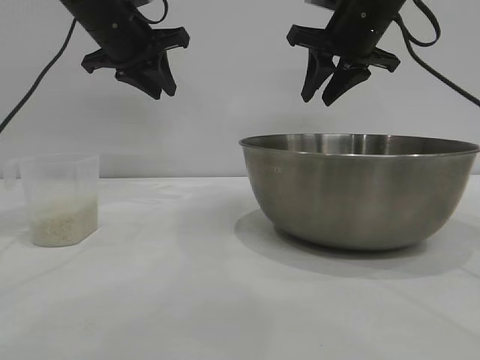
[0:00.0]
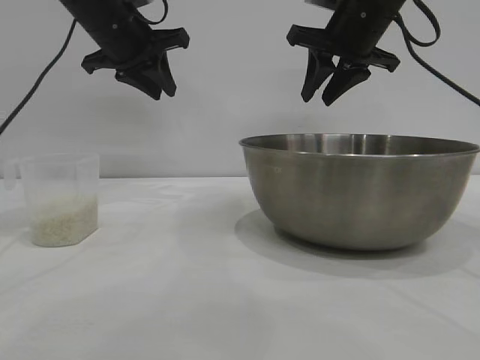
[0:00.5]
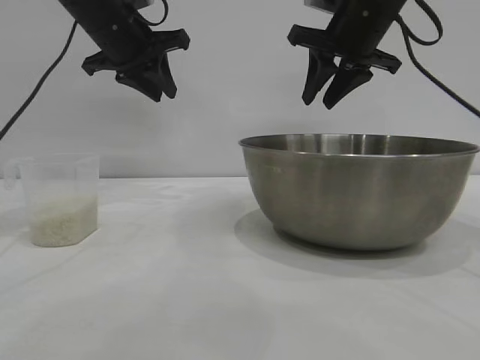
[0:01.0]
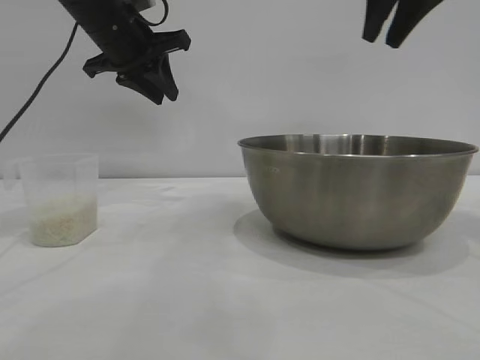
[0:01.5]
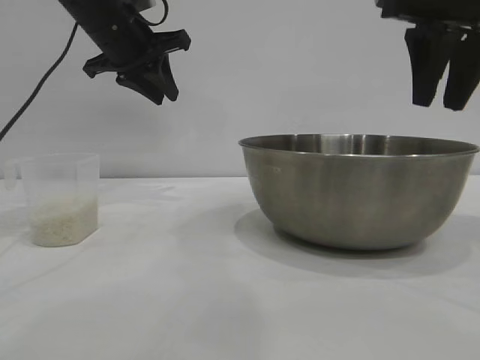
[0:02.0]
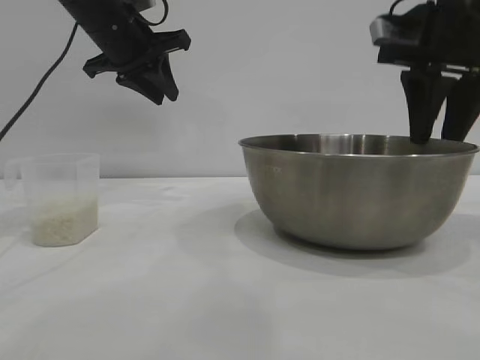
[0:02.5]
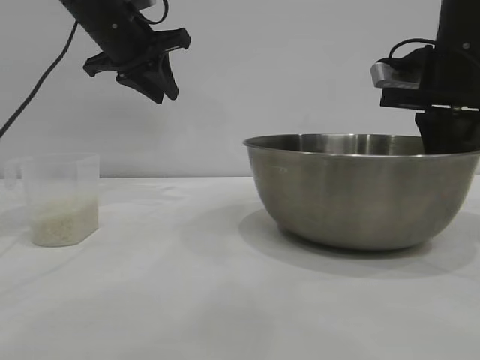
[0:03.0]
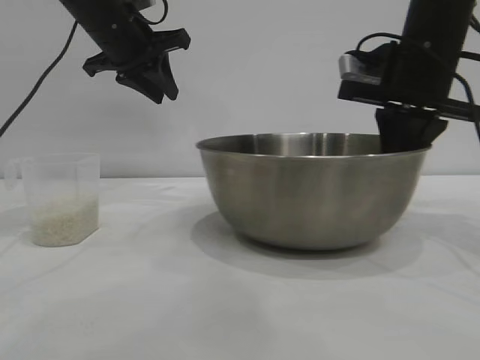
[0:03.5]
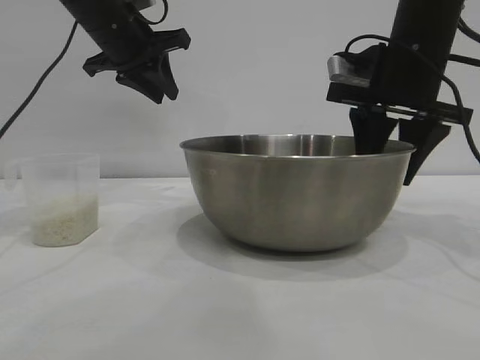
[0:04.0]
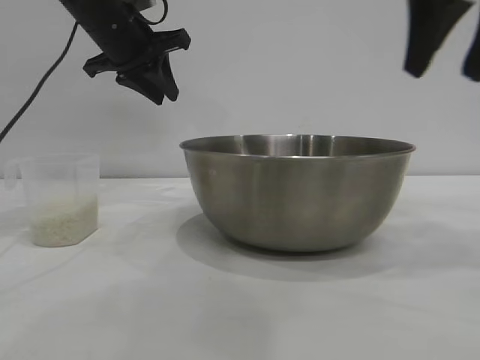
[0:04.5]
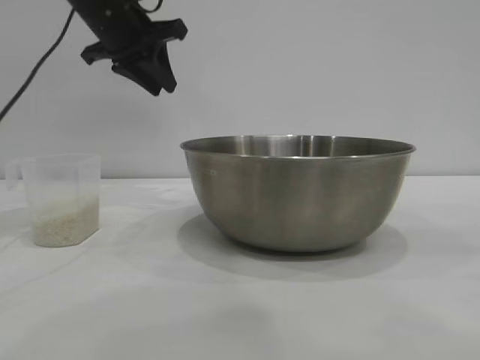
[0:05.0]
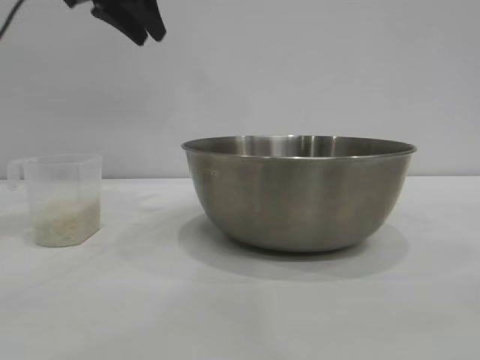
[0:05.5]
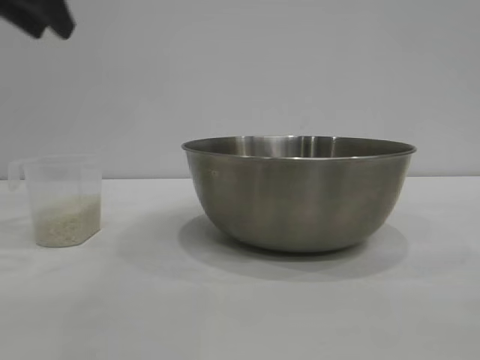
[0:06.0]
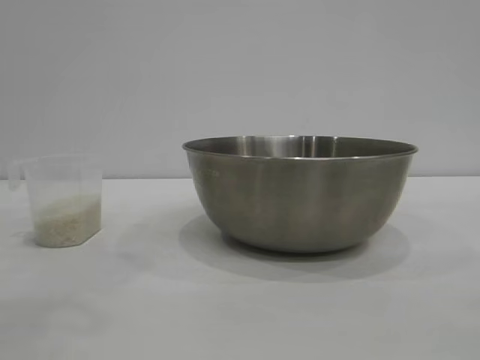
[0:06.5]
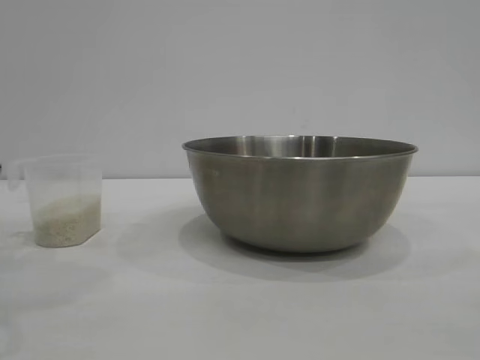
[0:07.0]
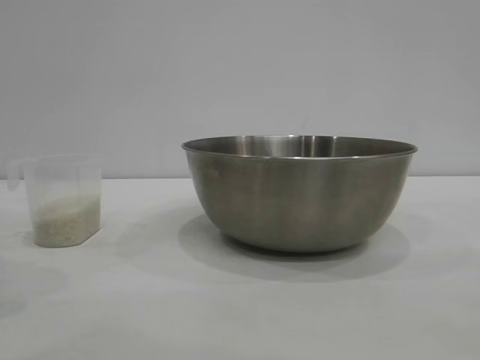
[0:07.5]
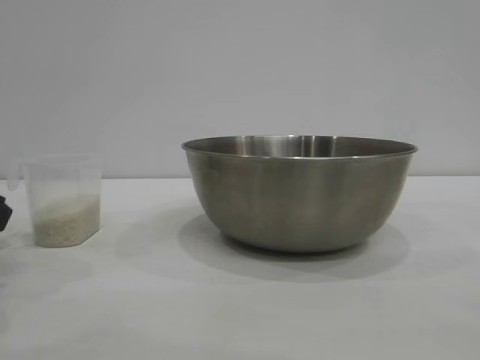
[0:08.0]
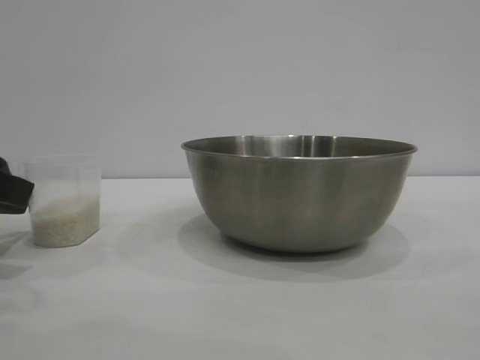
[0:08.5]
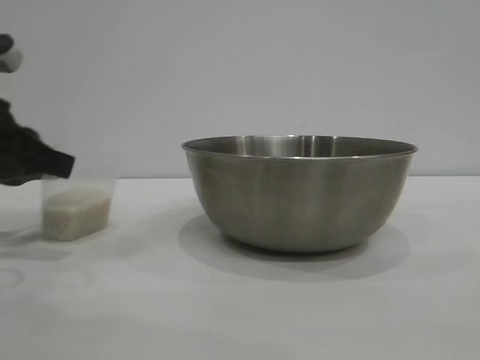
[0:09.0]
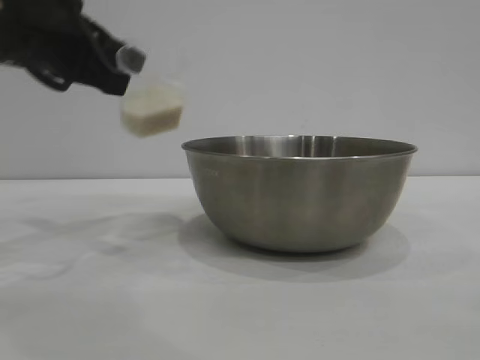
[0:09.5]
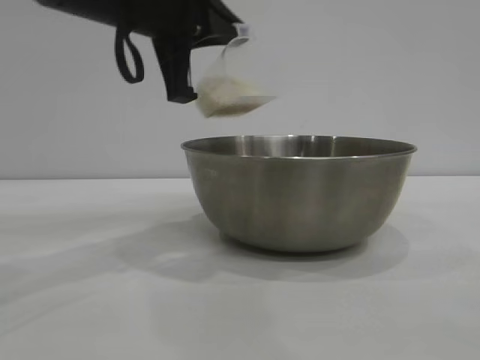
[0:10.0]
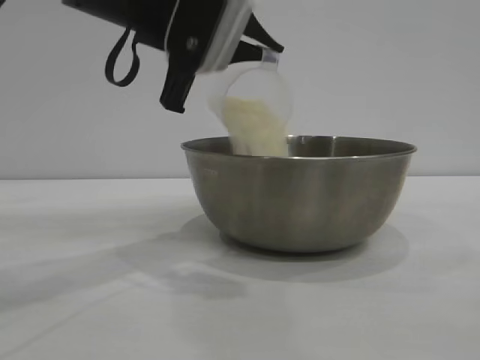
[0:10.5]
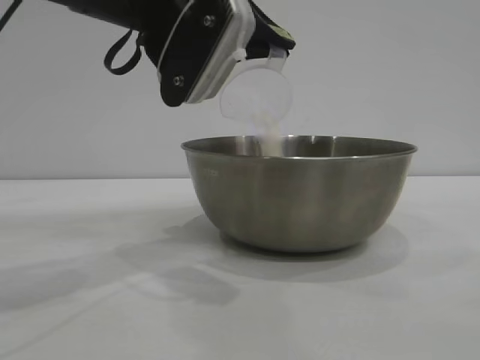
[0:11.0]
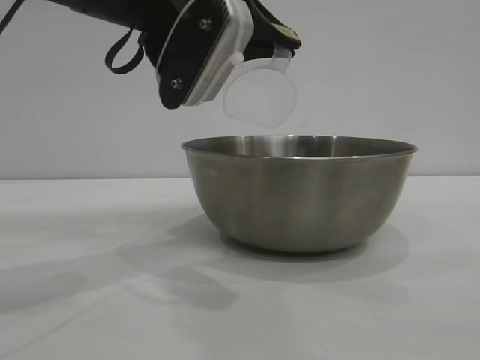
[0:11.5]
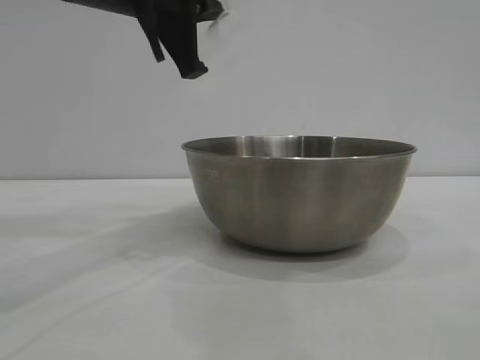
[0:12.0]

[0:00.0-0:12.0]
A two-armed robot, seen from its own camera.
Task of the whole recording: the right gripper grasp the rice container and place it in the center of the table, the left gripper grasp the rice scoop and pour the rice into the rice container.
Step, 0:00.0 to 0:04.0: Move the bowl to the center of view with the right gripper.
Step, 0:04.5 to 0:09.0: Pick up the cup with rice in it with the left gripper.
Step, 0:09.5 to 0:11.5: Pour the rice from the cup into the bowl with the left gripper.

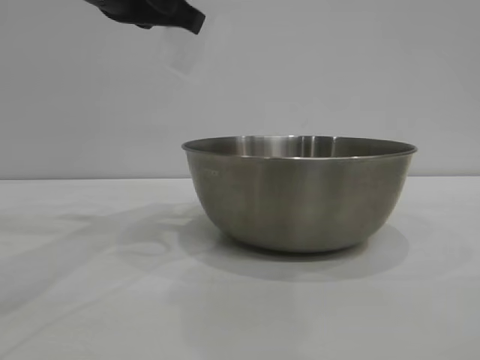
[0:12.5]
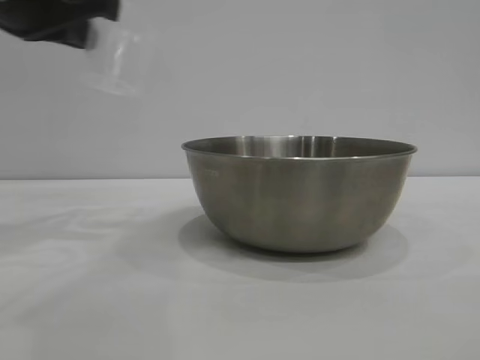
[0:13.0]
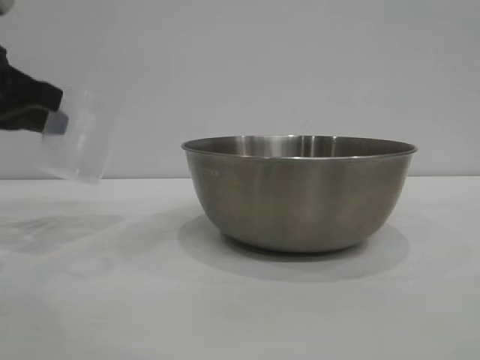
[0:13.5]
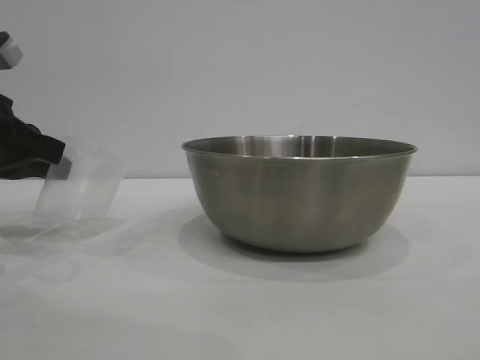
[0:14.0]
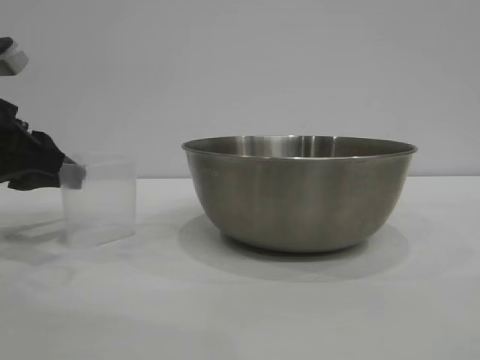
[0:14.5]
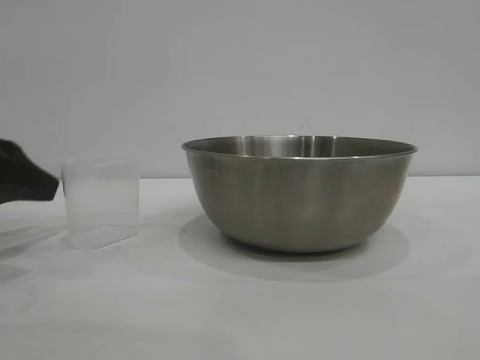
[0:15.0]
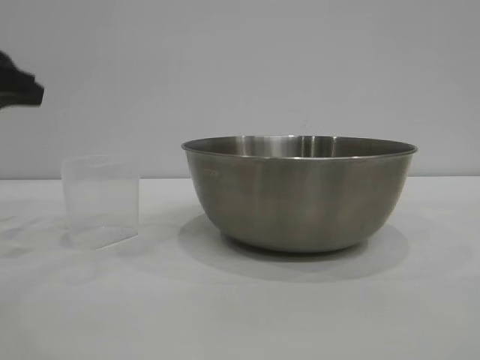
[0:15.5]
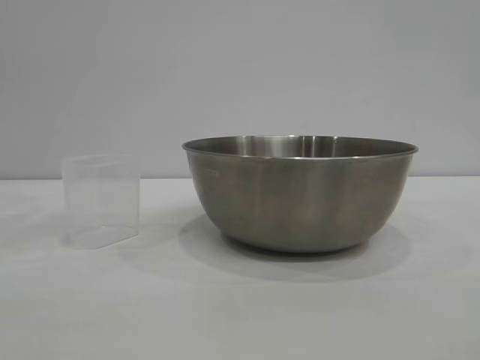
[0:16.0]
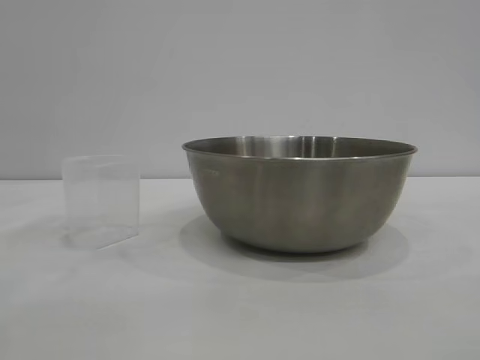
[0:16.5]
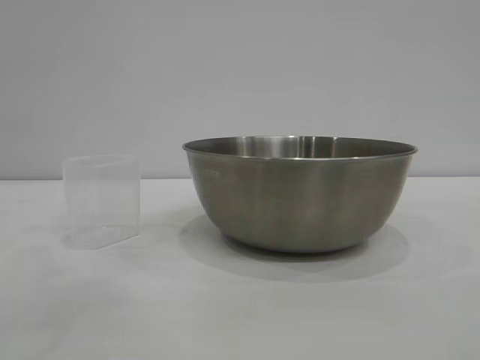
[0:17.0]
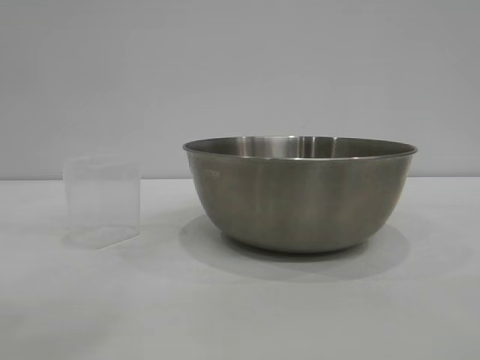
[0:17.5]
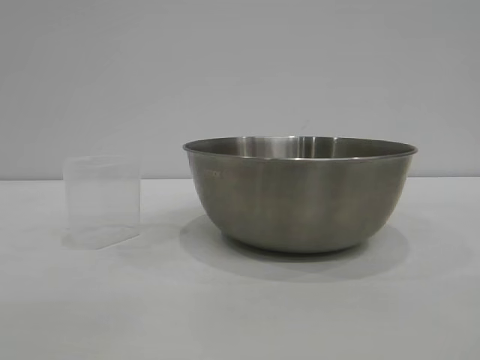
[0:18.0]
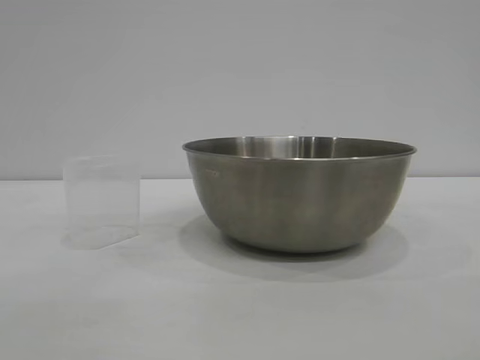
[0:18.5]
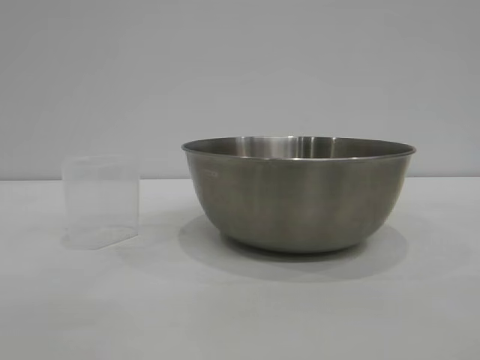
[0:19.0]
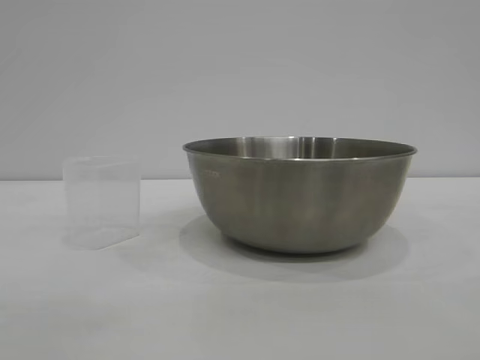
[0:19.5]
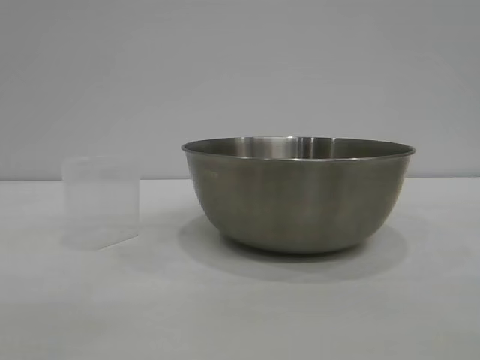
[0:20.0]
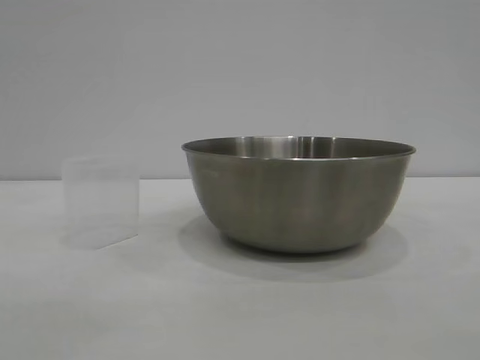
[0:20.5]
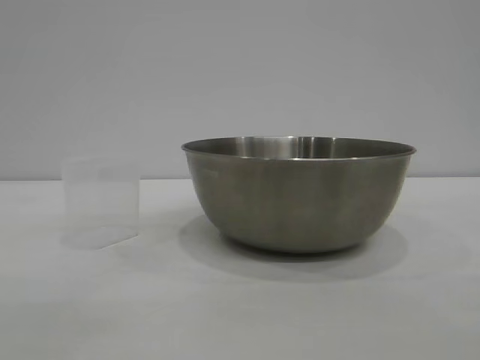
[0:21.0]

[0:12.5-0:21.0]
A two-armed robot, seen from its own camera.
Task of the whole recording: the right gripper grasp the rice container and place it in the center of the table, the left gripper grasp the rice scoop and pour the rice into the rice container.
Step, 0:12.5 to 0:15.0: Place the cup on the table with the left gripper.

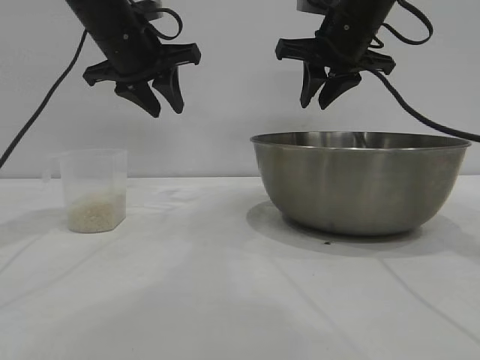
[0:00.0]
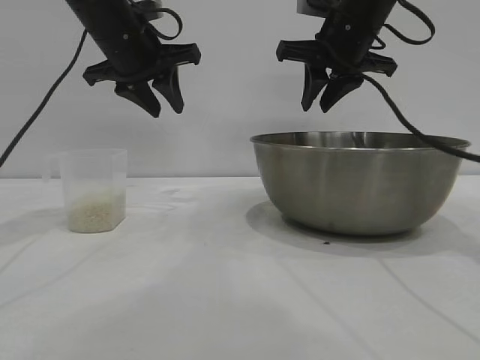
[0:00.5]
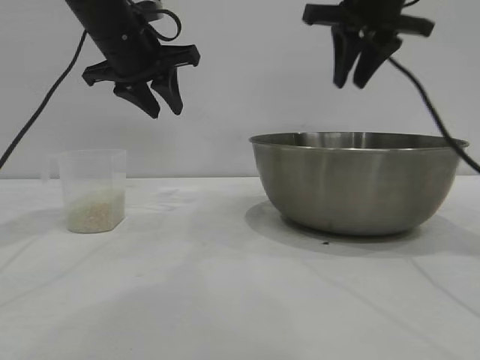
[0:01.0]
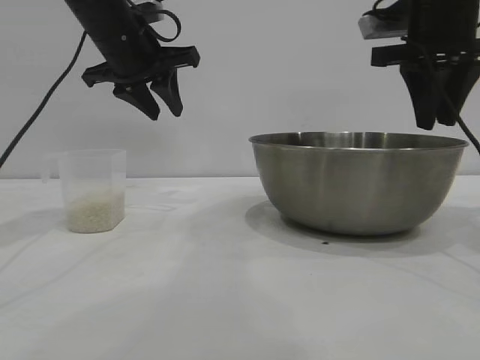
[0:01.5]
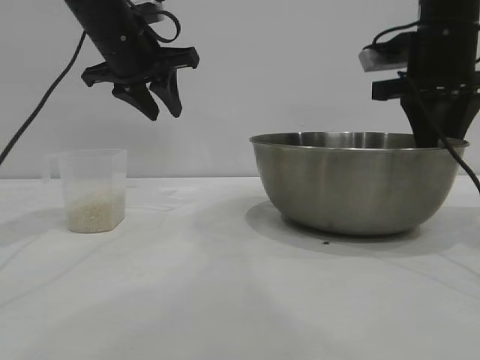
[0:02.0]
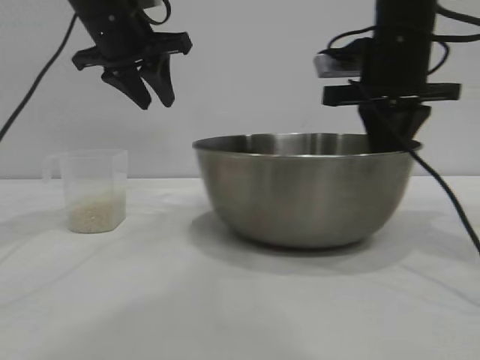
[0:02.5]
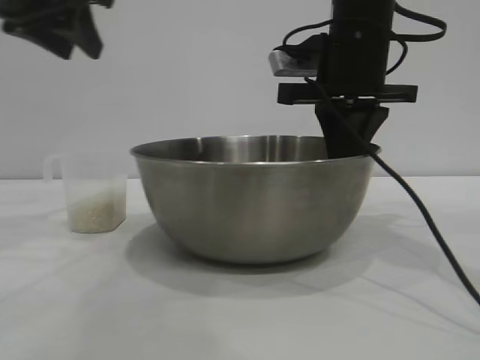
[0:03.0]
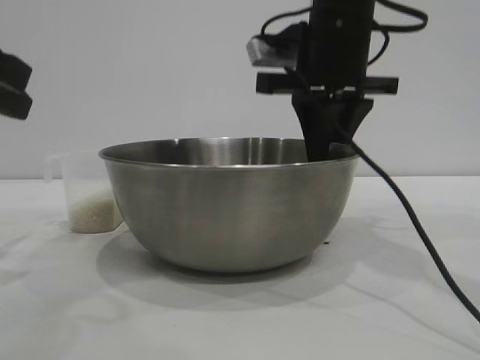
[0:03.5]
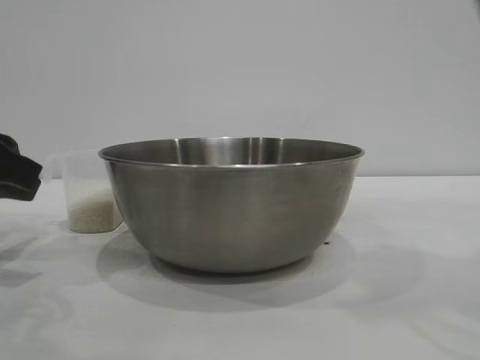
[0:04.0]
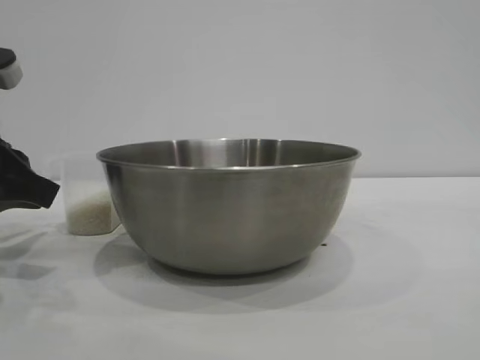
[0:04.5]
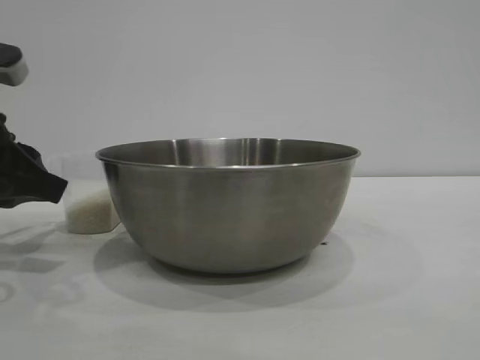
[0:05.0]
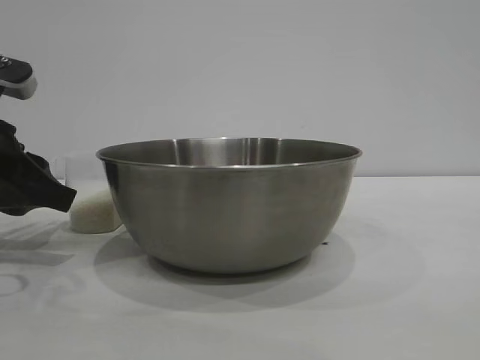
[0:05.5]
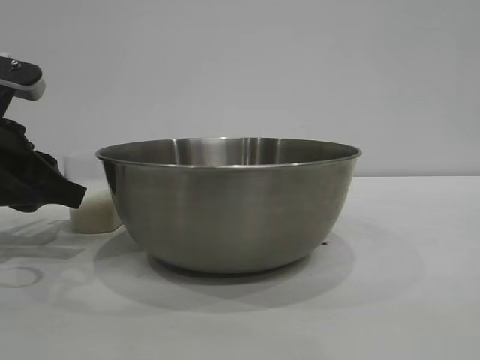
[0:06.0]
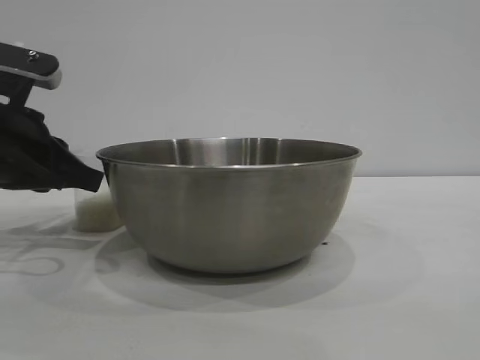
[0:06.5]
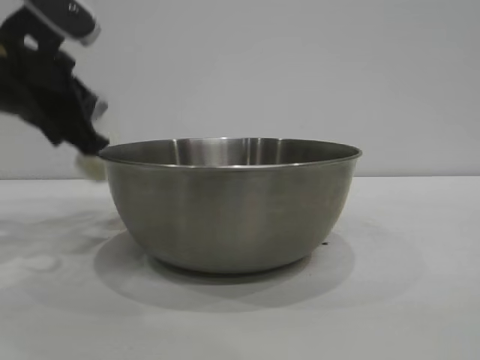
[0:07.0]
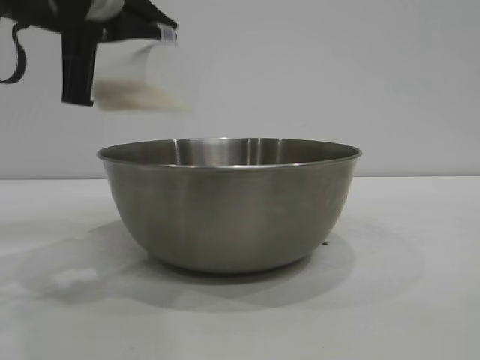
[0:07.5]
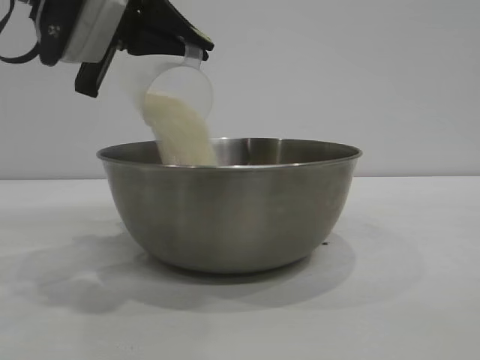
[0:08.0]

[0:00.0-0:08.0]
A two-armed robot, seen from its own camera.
Task of the whole recording: the right gripper grasp the rice container and place it in the center of the table, the left gripper grasp the rice scoop and pour the rice into the rice container.
Step, 0:00.0 to 0:03.5: Move the bowl to the center of view with the right gripper.
Step, 0:04.0 to 0:06.5: Pick up the cup with rice in it with the left gripper.
